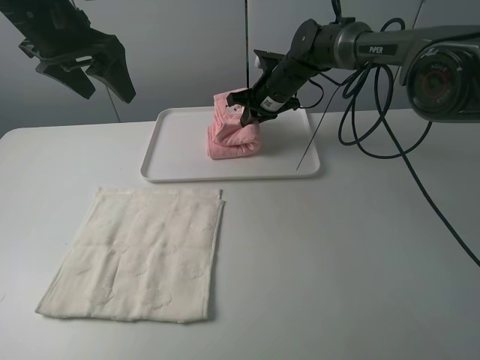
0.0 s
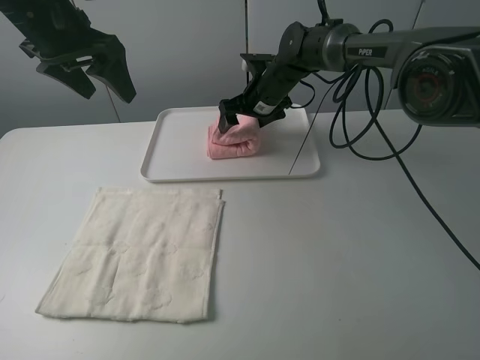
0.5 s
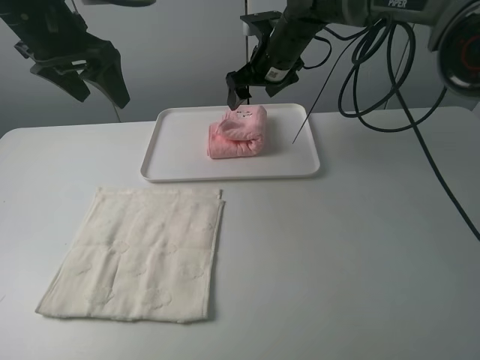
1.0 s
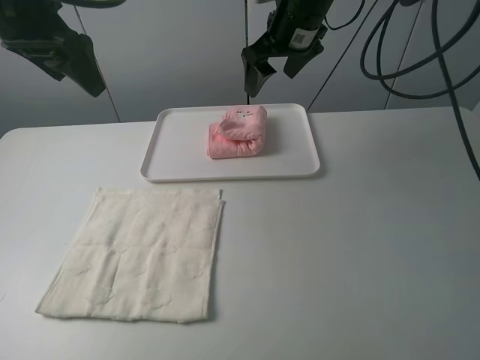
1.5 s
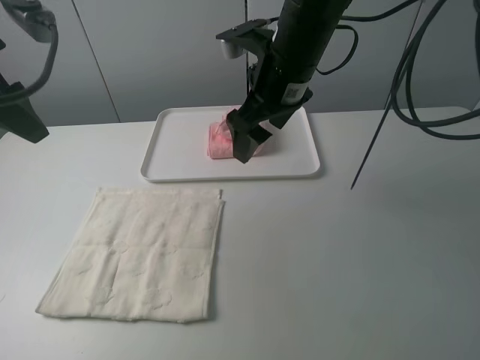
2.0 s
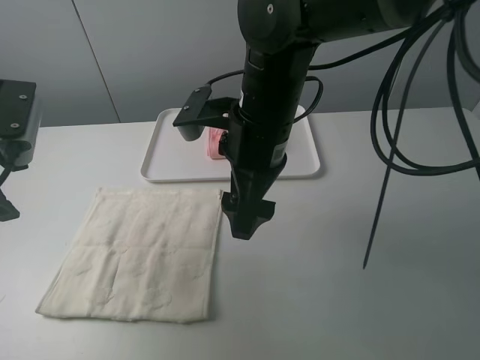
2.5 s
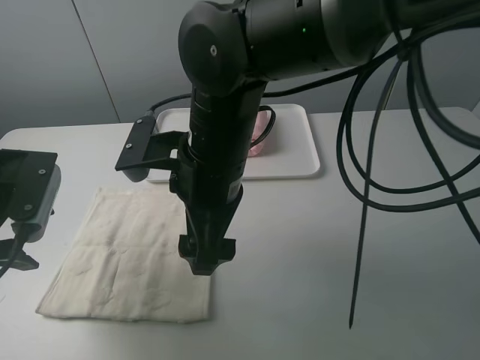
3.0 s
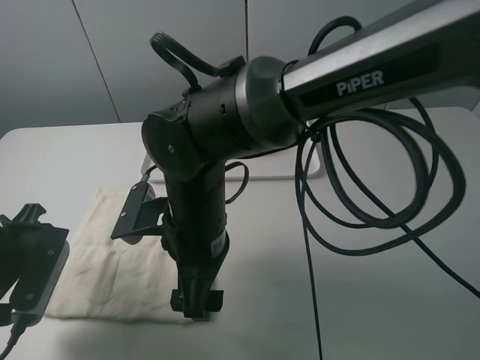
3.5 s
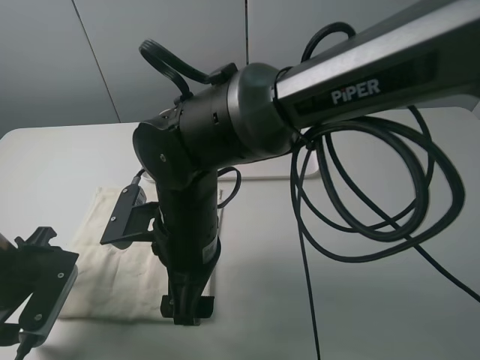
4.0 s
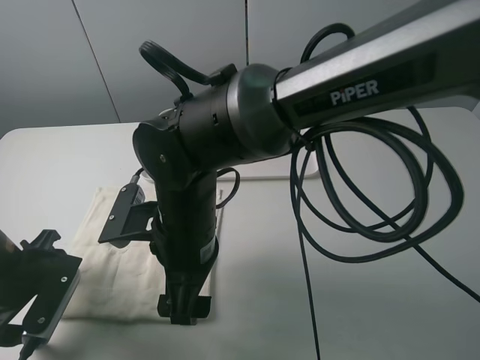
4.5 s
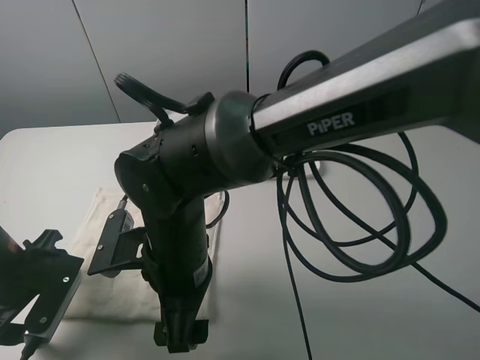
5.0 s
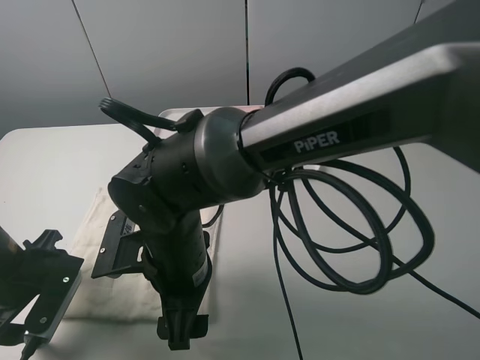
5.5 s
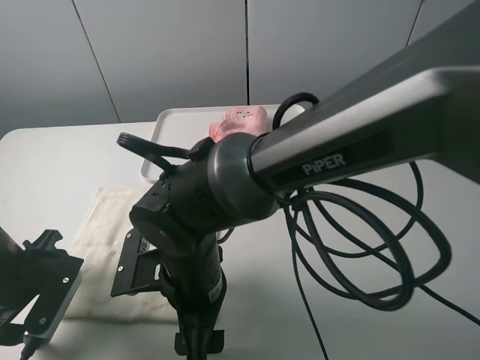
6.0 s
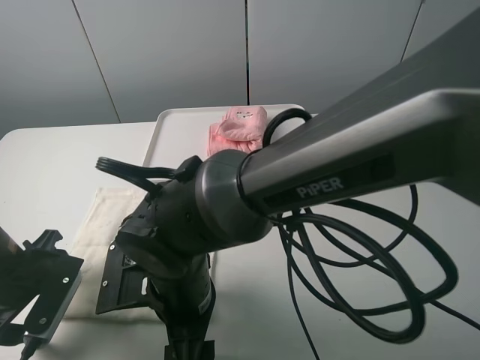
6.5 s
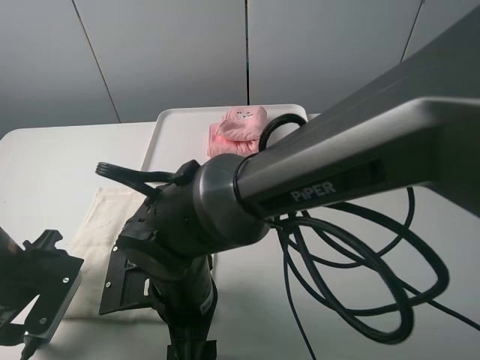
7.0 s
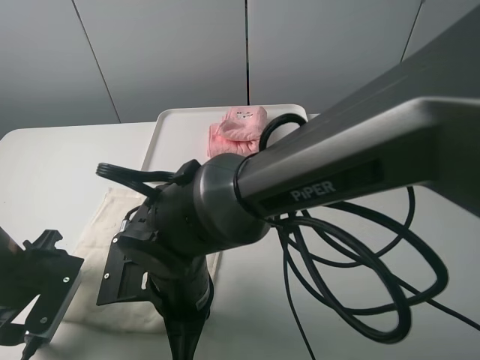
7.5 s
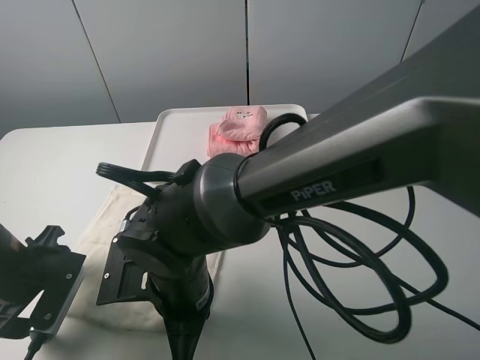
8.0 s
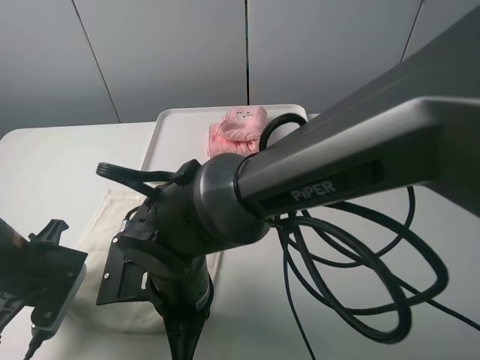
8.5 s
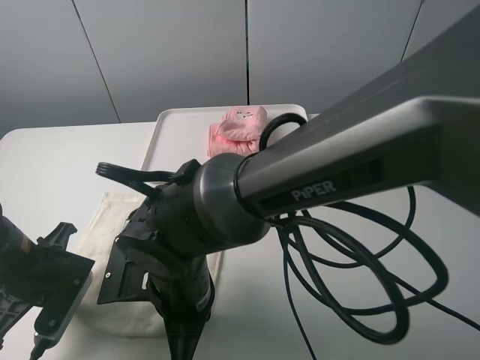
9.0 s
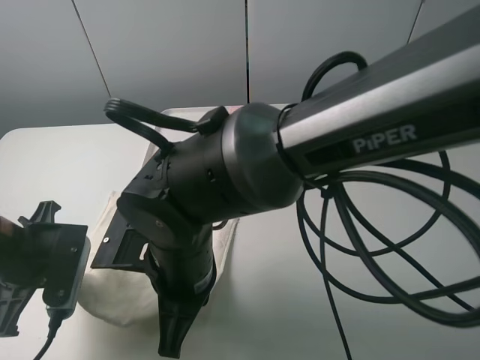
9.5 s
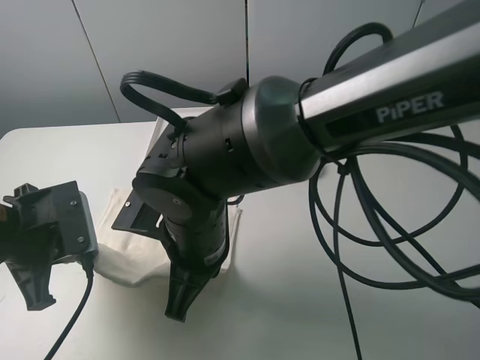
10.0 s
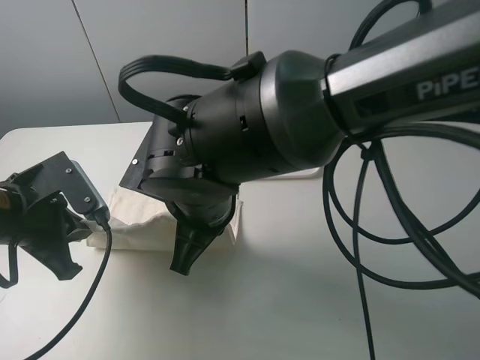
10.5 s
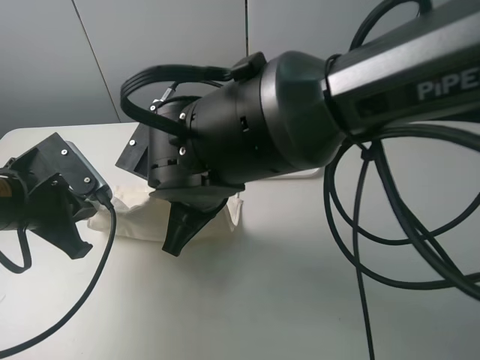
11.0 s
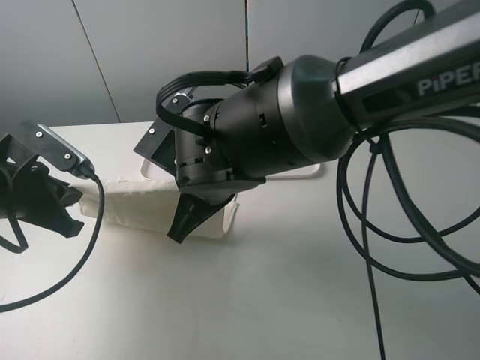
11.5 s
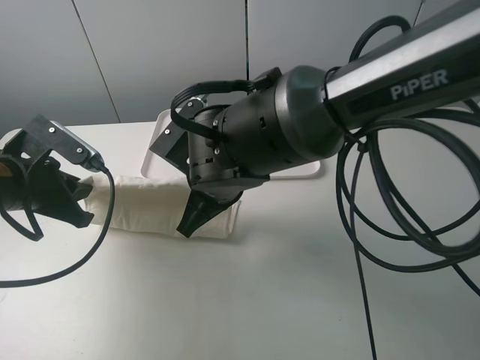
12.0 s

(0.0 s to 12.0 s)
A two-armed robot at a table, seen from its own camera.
Task of the whole recording: fold one of the towels by two grippers and place it on the tray,then fold another towel by two grippers and place it on the folded towel.
Step, 1.0 s - 8.0 s: Grasp the white towel with the left gripper.
0.0 s - 2.0 s: The left gripper heads backward and to the left, covering approximately 10 cm; the right gripper shifts roughly 20 cm backward and upward, and opens.
2.0 s - 4.0 s: The left gripper heads downward and backward, covering about 25 cm. The right gripper is displaced backward, to the left and downward by about 20 cm.
4.0 s - 6.0 s: The right gripper moves some 5 cm.
6.0 s - 8.0 s: The right gripper closes.
8.0 s - 10.0 s: The two grippers go about 5 cm upward. The left gripper closes.
10.0 s - 12.0 s: Both grippers travel together forward, about 5 cm.

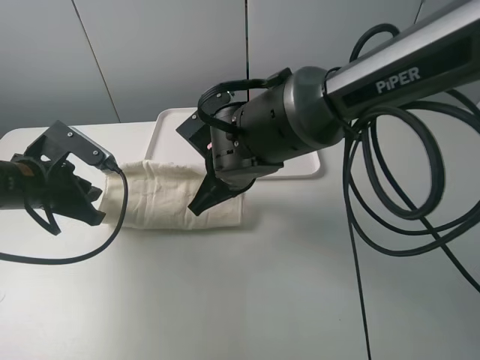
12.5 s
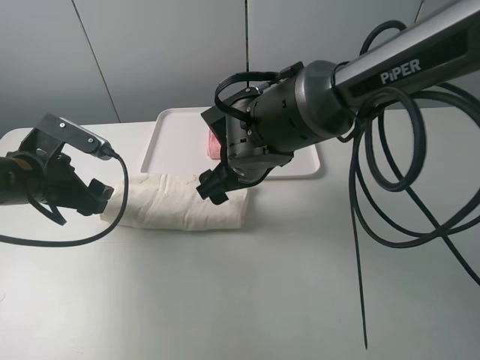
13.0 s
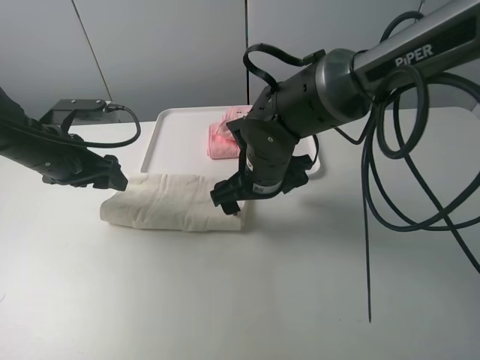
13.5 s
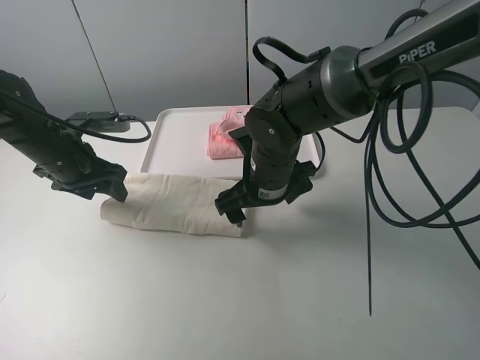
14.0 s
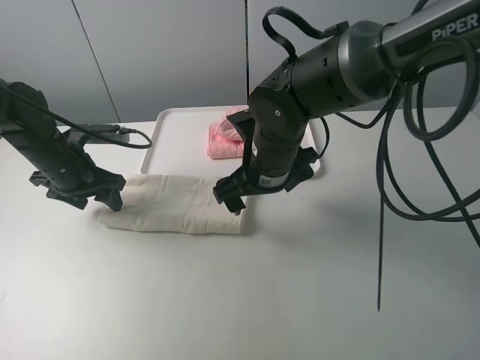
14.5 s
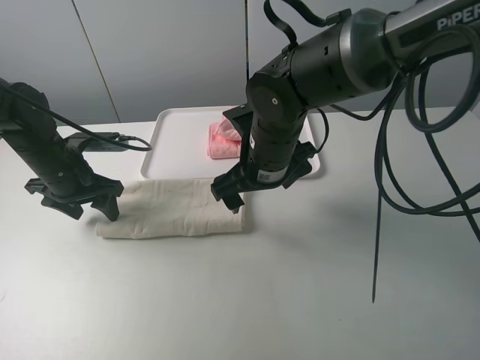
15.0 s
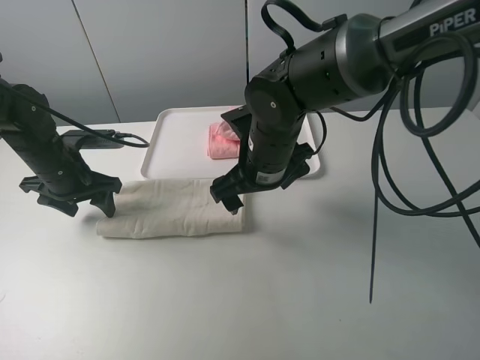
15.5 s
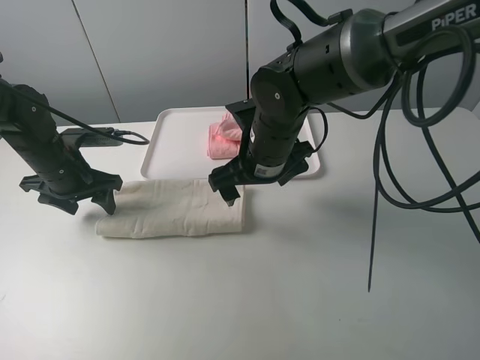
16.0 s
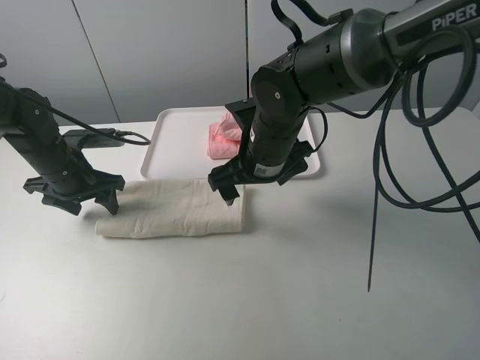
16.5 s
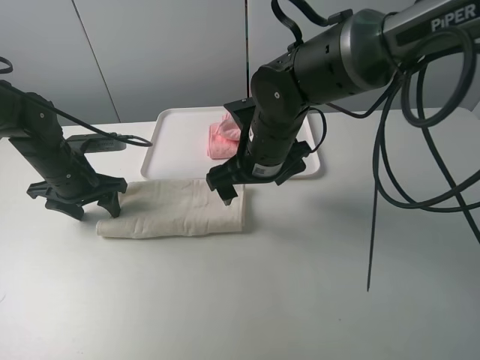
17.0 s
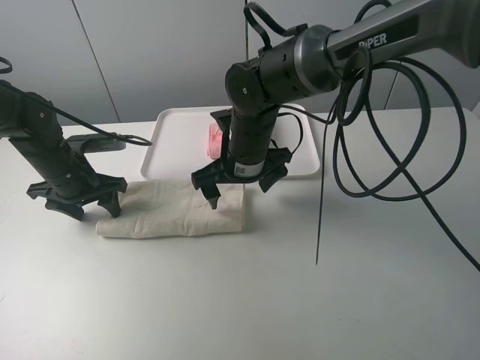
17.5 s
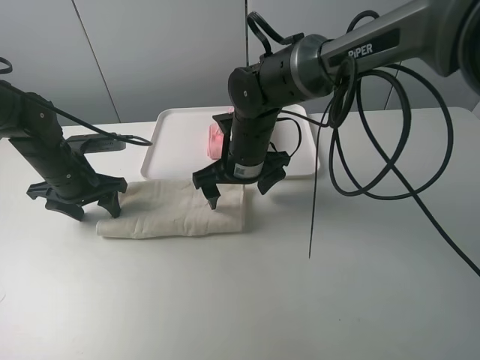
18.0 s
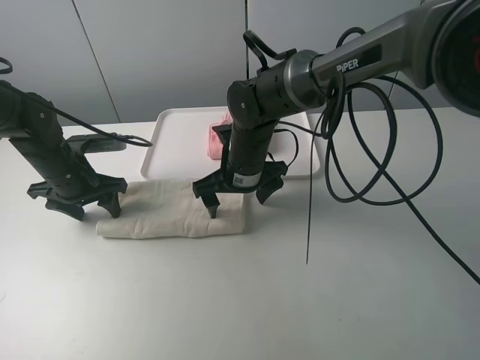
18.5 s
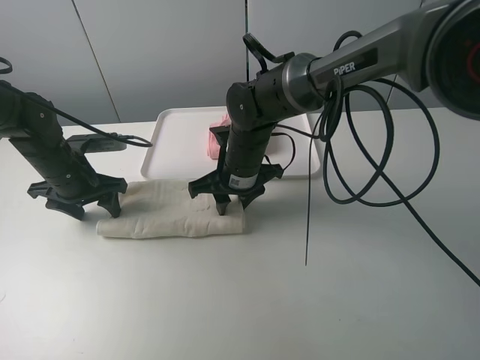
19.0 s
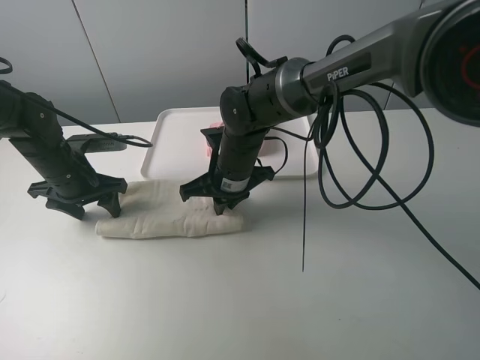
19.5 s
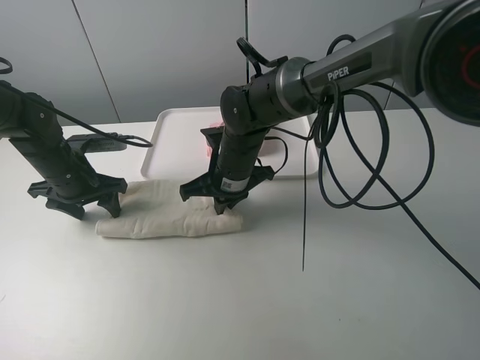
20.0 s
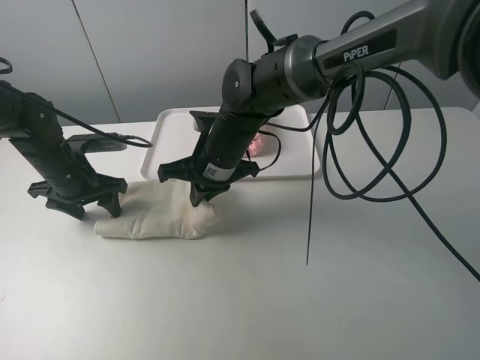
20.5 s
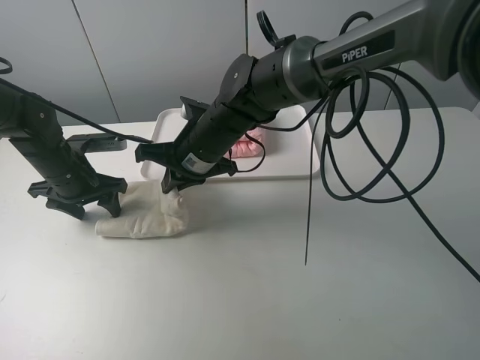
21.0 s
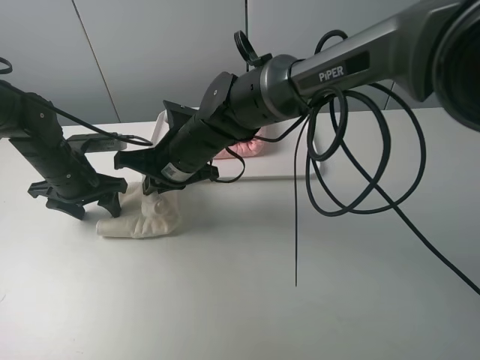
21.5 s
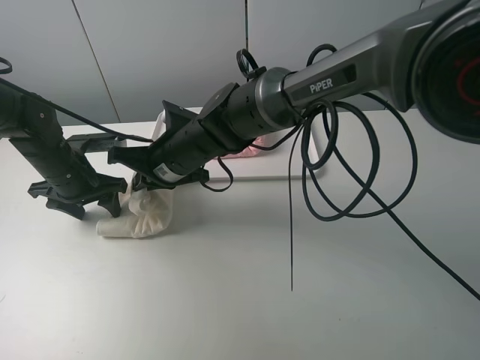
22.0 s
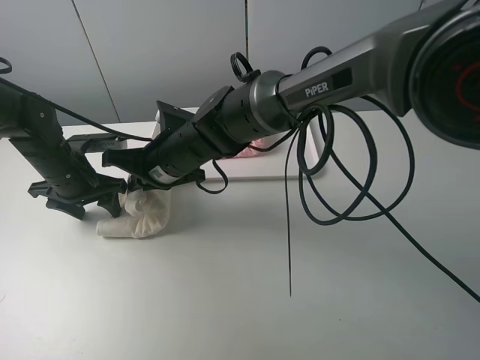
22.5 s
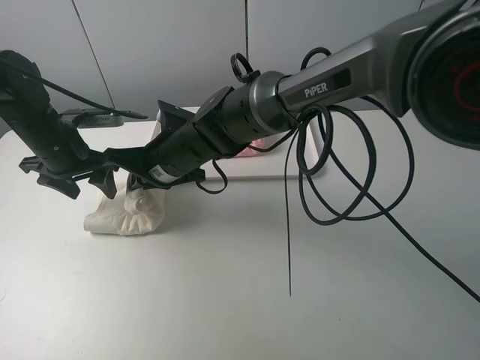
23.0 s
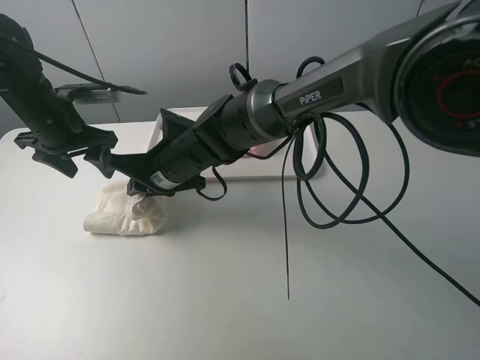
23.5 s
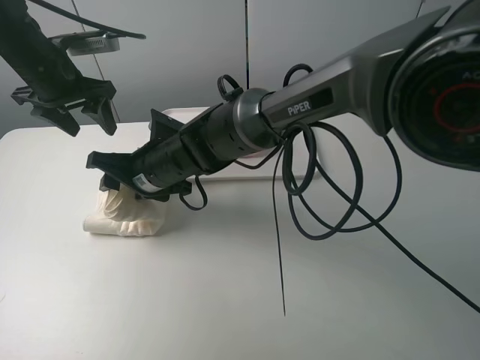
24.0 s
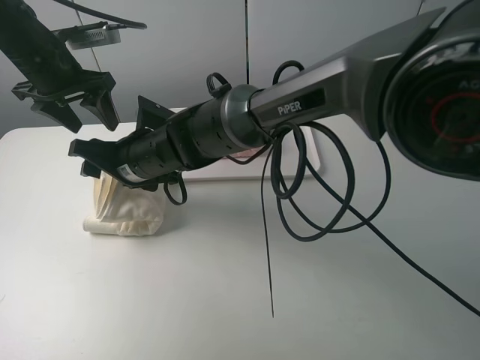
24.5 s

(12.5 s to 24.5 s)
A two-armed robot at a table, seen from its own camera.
Task of the whole recording: fold one of the towels by two grippers and place it on the tray,then fold another towel by two grippers and place it on the folded towel.
Step, 13.0 s - 14.5 s: Press the white towel with the left gripper.
Step, 15.0 s - 19.5 s: Grasp the white towel with the right gripper.
12.5 s - 14.5 s: The right gripper opens, while the left gripper is displaced forward by some 10 cm, and opens its fingers.
14.5 s - 16.5 s: The grippers move only a little.
16.5 s - 18.5 s: The right gripper heads downward, covering about 5 cm.
18.5 s - 20.5 s: The right gripper closes up.
20.5 s - 22.5 s: The right gripper travels to the left by roughly 5 cm.
22.5 s - 24.5 s: The right gripper opens up, while the left gripper moves upward, roughly 15 cm.

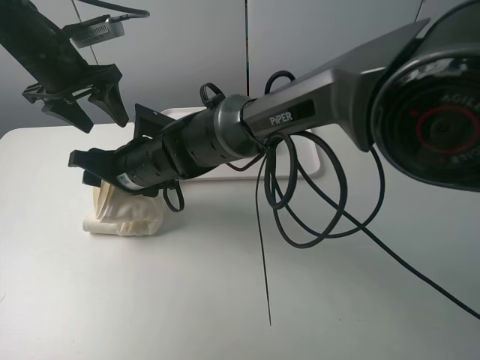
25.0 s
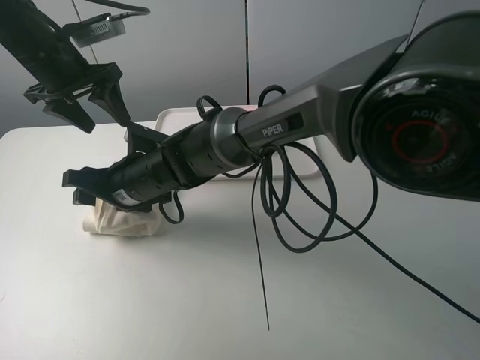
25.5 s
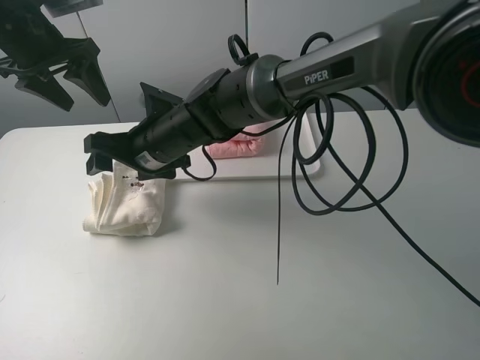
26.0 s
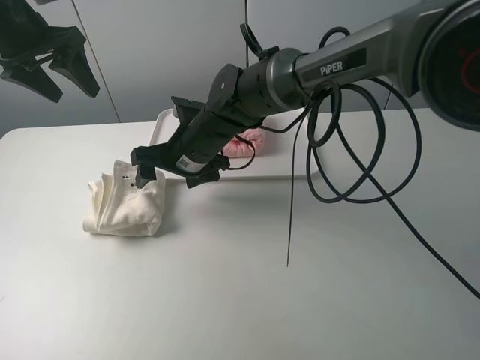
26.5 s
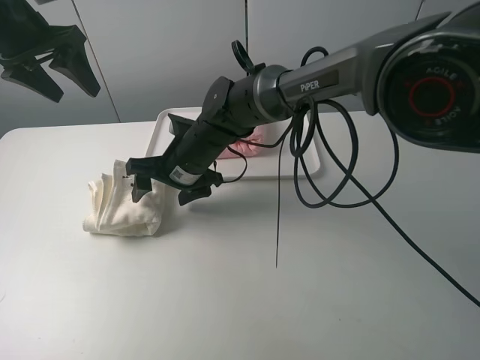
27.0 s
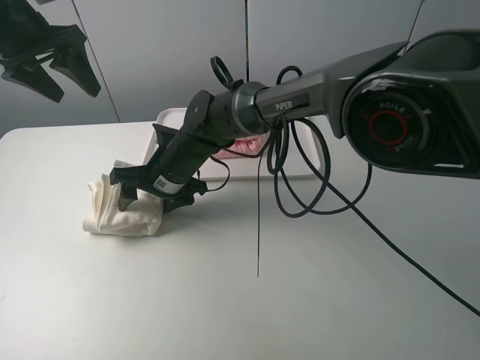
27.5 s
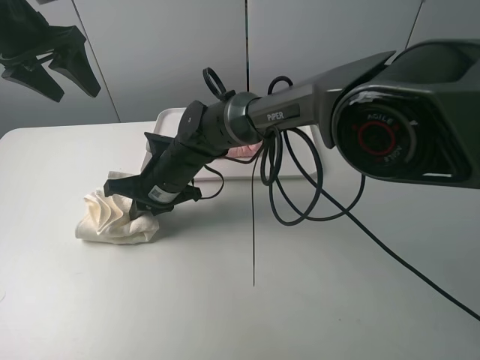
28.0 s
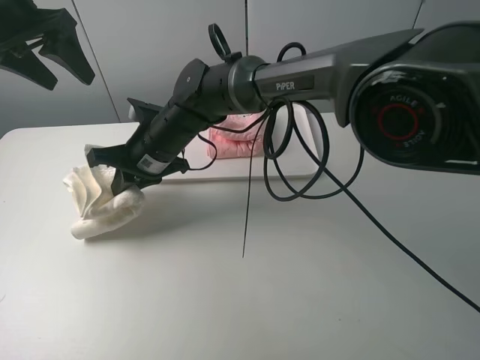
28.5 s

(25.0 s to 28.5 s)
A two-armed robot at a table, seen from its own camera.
Task of the whole recording: fold one of the towels by two grippers and place it on the tray,then fold another towel by two grippers and place it on the folded towel.
Step, 26.5 s - 27.5 s: Grasp the white towel with the right gripper.
25.0 s - 27.0 s: The left gripper is displaced upward by about 5 cm. Meanwhile the right gripper heads to the right, covering roughly 5 cm.
27.0 s - 28.5 s: The right gripper shifts by roughly 5 cm, and closes.
